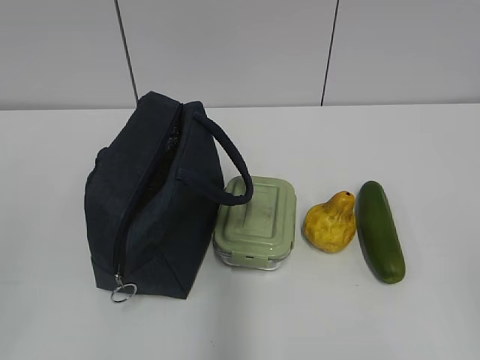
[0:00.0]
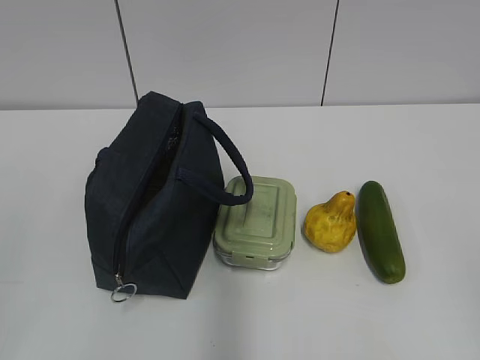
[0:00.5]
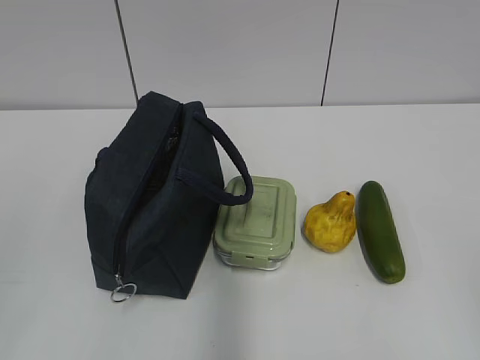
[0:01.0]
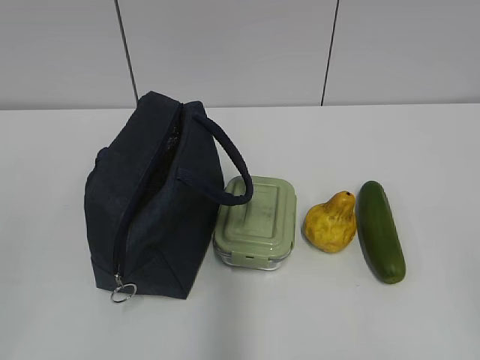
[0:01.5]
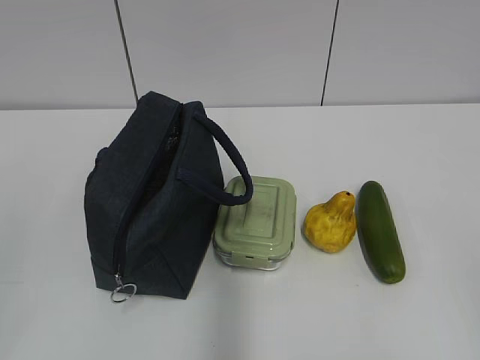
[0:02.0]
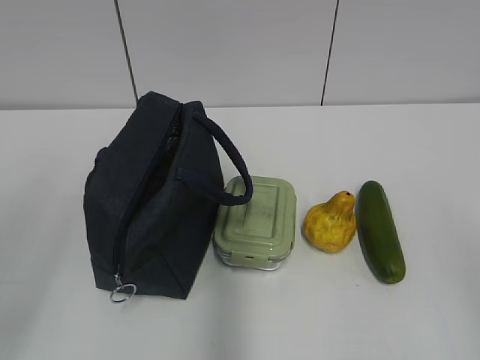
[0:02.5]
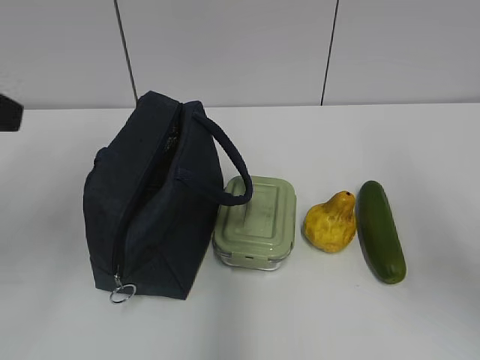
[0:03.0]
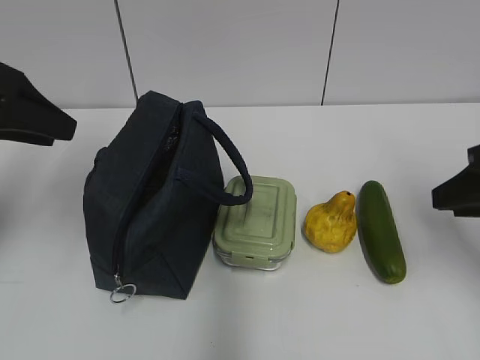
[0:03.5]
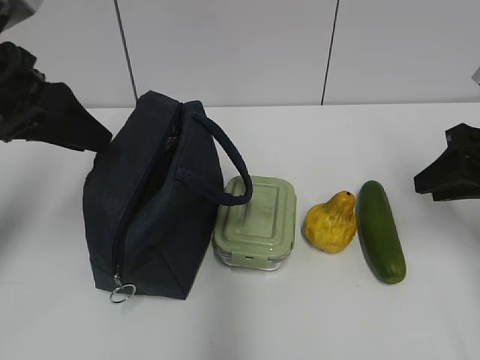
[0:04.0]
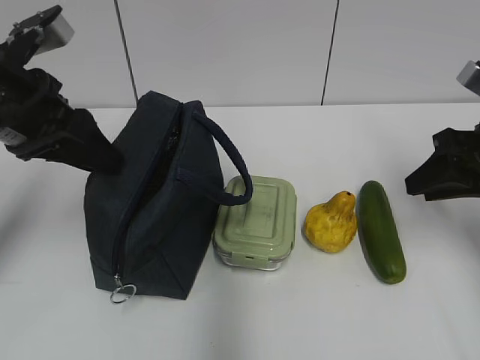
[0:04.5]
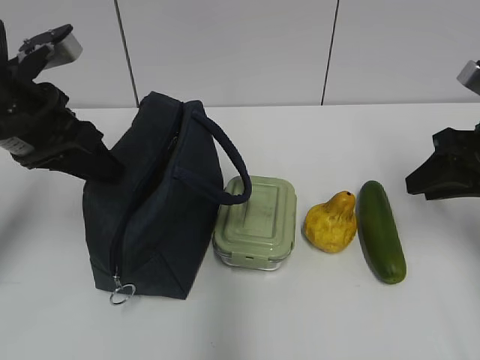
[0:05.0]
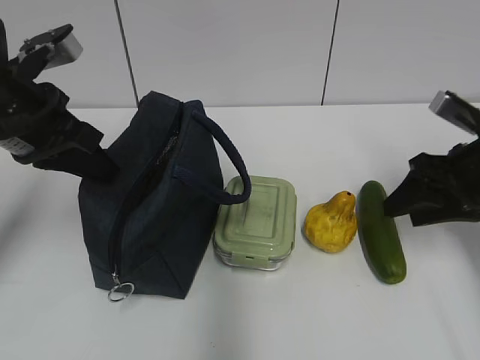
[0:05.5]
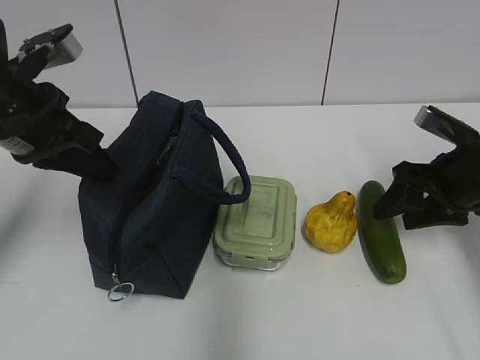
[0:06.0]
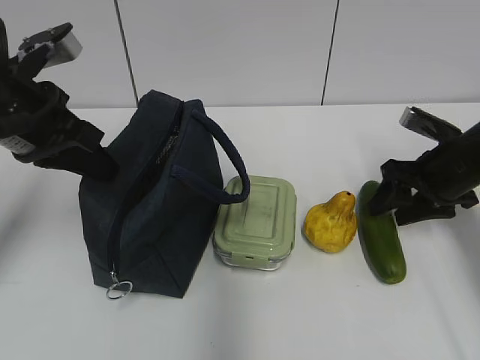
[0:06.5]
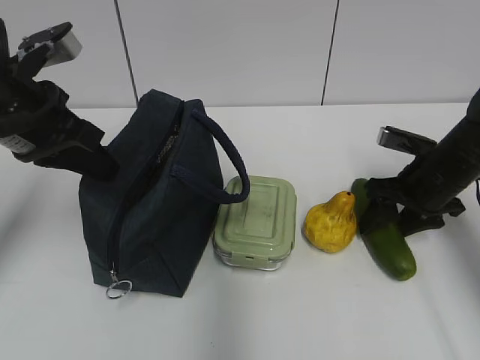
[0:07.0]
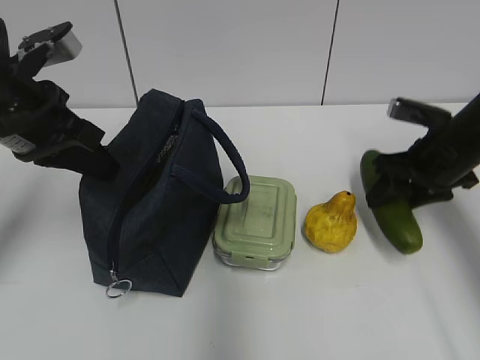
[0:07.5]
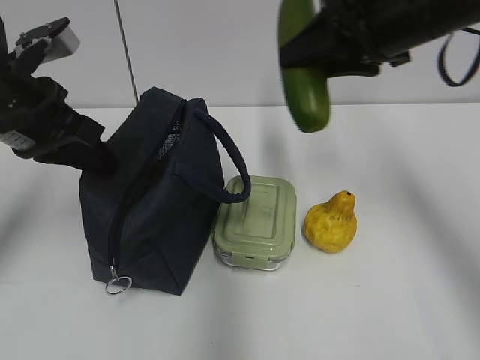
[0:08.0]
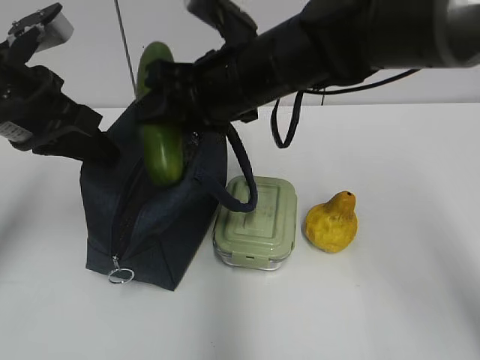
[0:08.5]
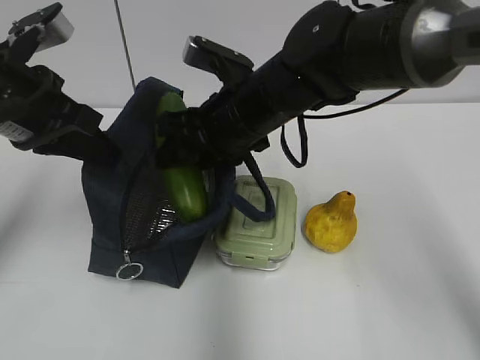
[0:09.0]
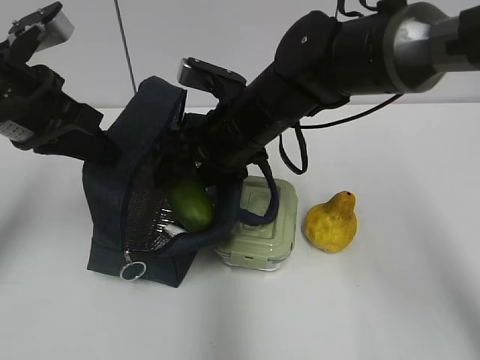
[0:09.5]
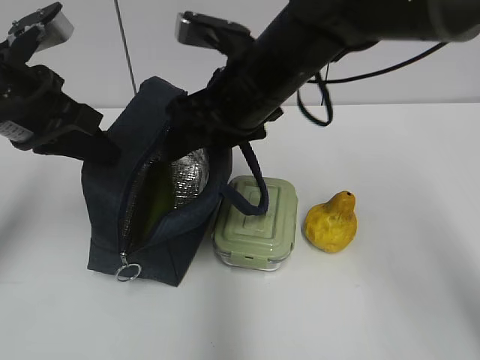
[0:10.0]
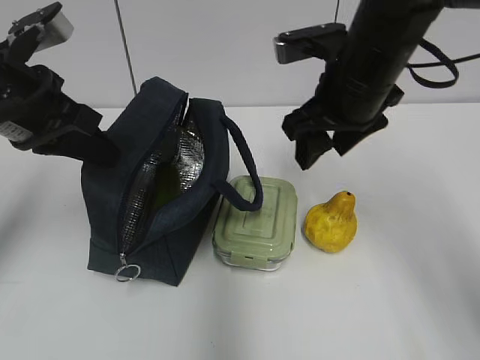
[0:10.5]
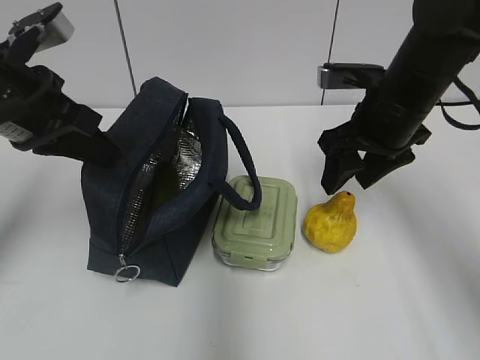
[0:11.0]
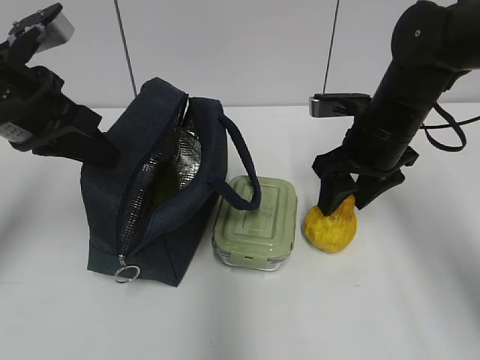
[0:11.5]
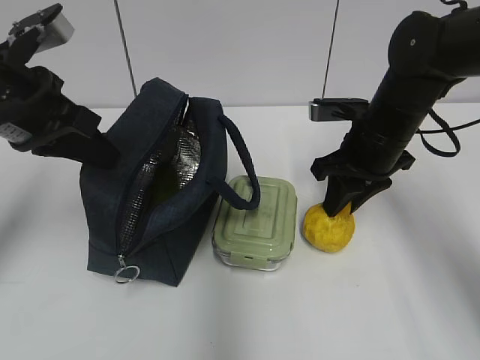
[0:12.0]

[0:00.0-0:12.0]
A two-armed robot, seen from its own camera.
0:02.0 to 0:04.0: Both grippers move forward, roughly 30 cm. The right gripper opens its fingers. The left gripper opens its fingers.
0:04.0 to 0:06.0: The left gripper closes up. The right gripper moves downward, some 5 cm.
0:06.0 to 0:08.0: The right gripper shifts some 20 cm upward and to the left.
0:08.0 to 0:10.0: The right gripper goes roughly 15 cm to the left and downward.
0:10.0 to 0:12.0: The right gripper moves to the right and downward, some 15 cm, and closes up.

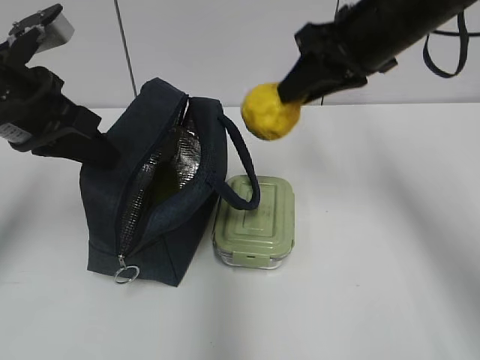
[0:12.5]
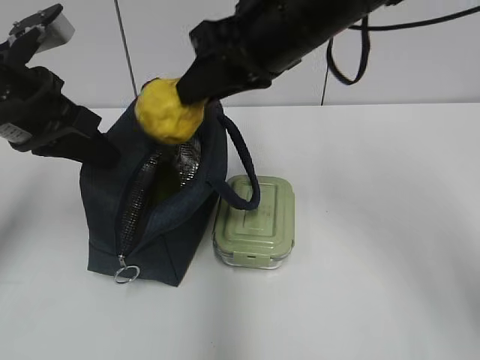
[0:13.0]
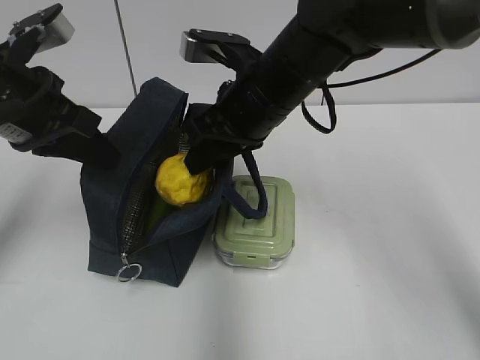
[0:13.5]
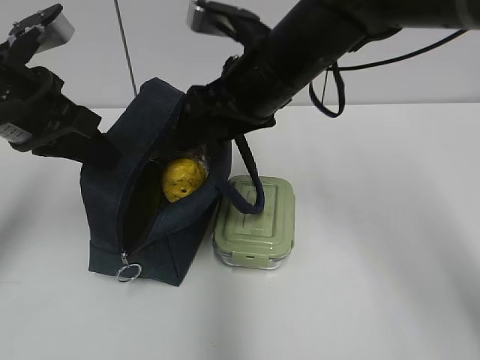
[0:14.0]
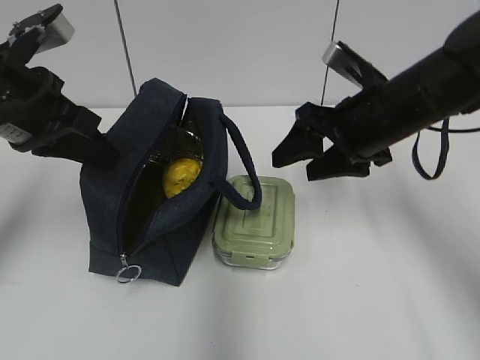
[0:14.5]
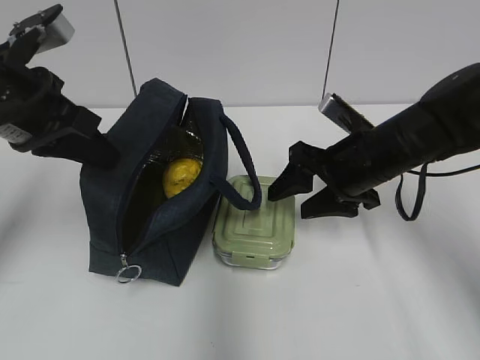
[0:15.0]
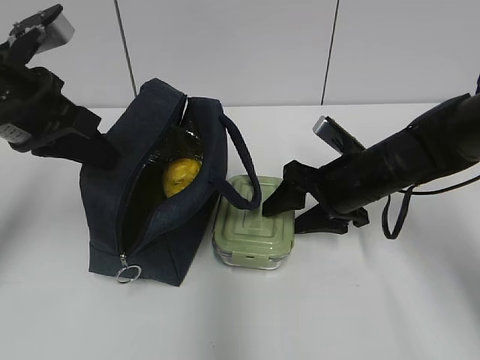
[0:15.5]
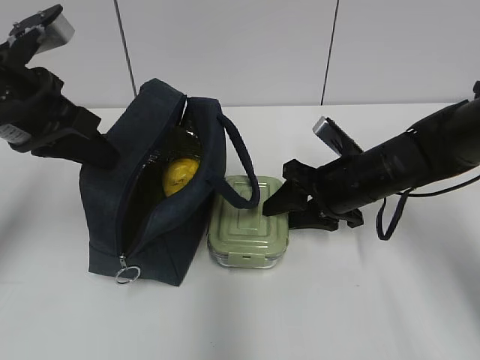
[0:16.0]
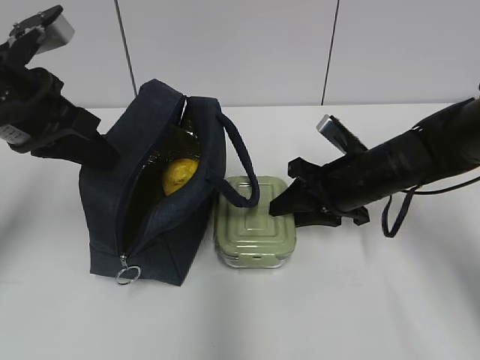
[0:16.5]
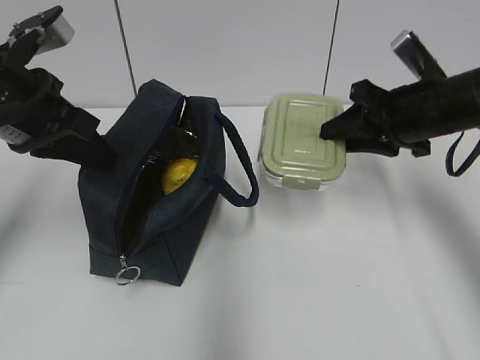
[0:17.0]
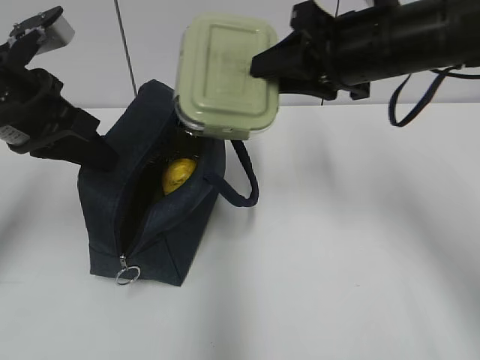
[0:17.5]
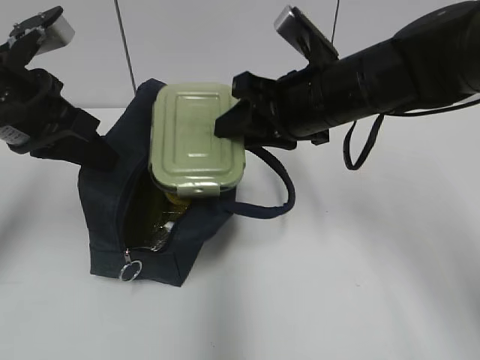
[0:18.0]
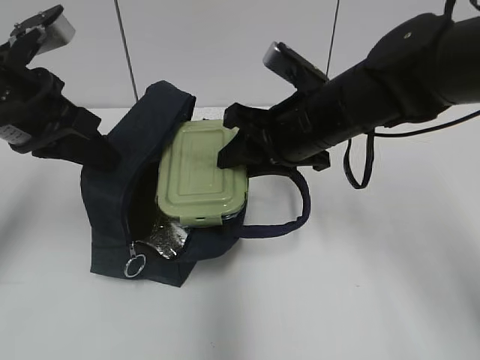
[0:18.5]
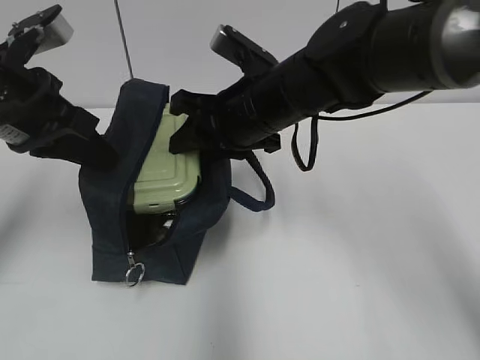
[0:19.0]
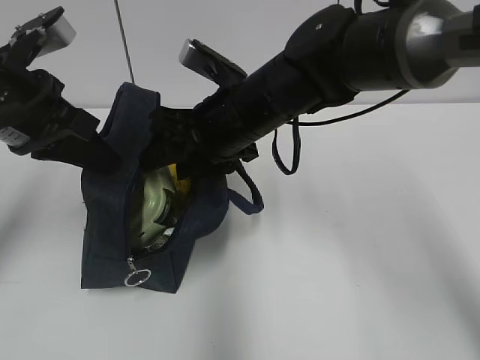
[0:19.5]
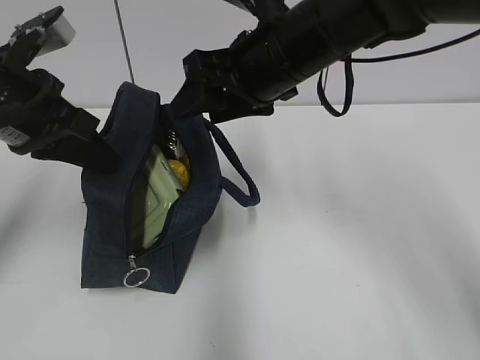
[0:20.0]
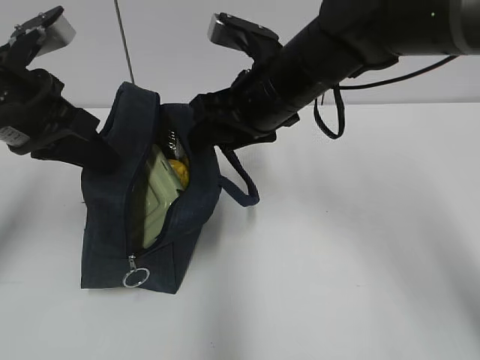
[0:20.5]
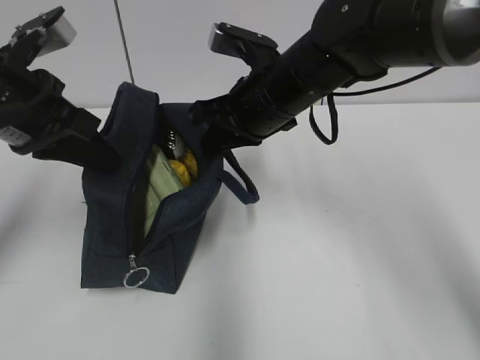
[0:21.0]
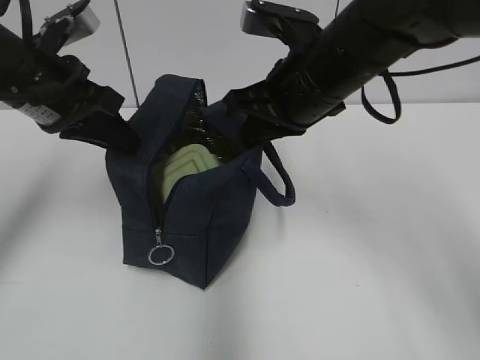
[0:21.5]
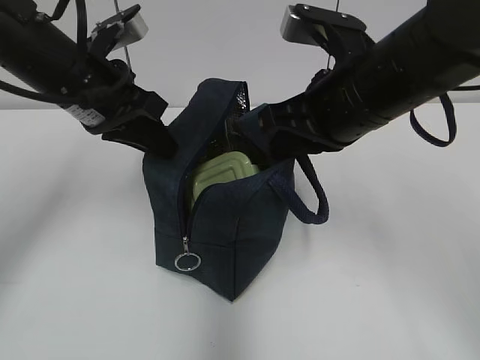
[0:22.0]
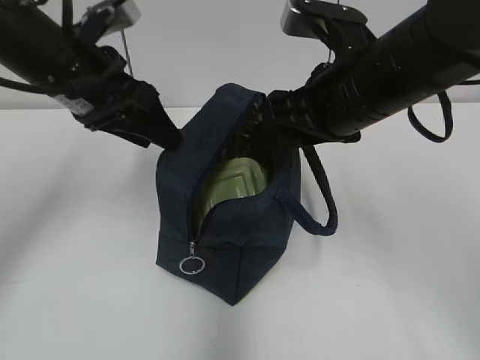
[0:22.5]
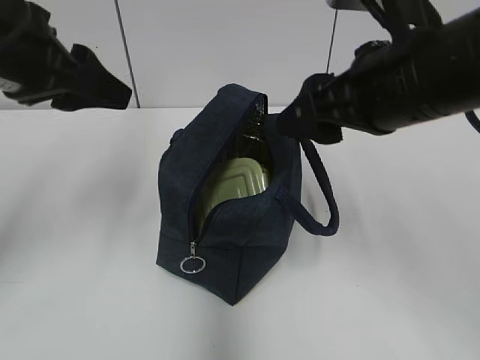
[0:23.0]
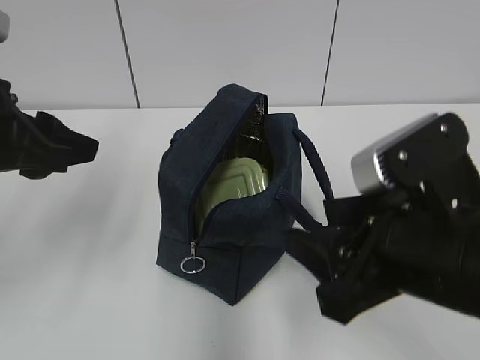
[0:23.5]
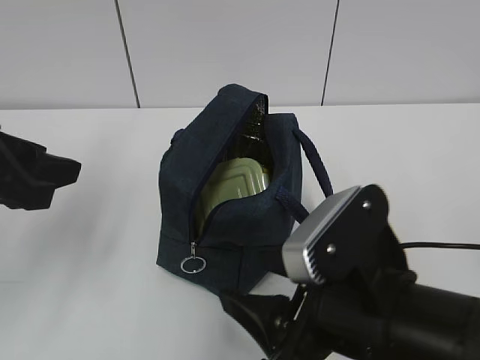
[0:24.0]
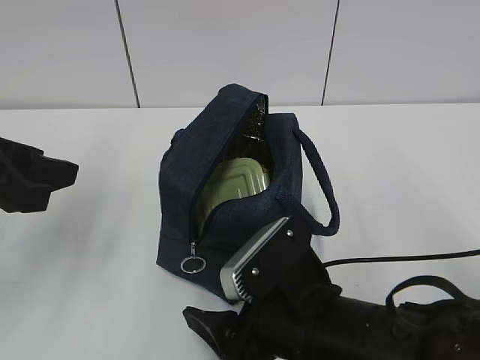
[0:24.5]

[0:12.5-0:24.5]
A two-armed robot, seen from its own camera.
0:12.5 to 0:14.5: The right gripper moves downward, roughly 10 cm, moves roughly 10 cm to the left and comes back, and opens its fingers.
0:14.5 to 0:16.5: The right gripper shifts about 10 cm downward, and closes.
0:16.5 to 0:18.5: The right gripper moves upward and to the left, some 10 cm.
0:20.5 to 0:22.5: The left gripper moves some 5 cm, and opens. The right gripper is displaced backward and to the right by roughly 10 cm, and closes and opens again.
0:22.5 to 0:24.5: The left gripper shifts approximately 15 cm backward and to the left, while the right gripper heads downward and backward, covering roughly 20 cm.

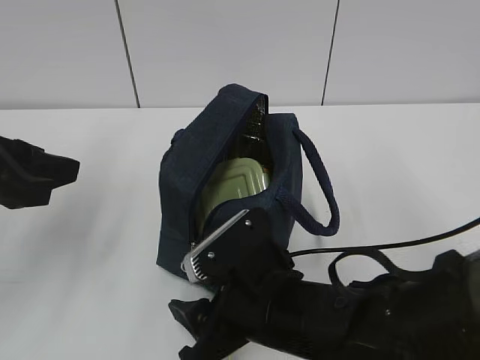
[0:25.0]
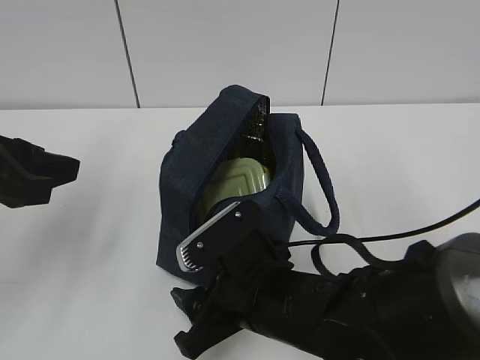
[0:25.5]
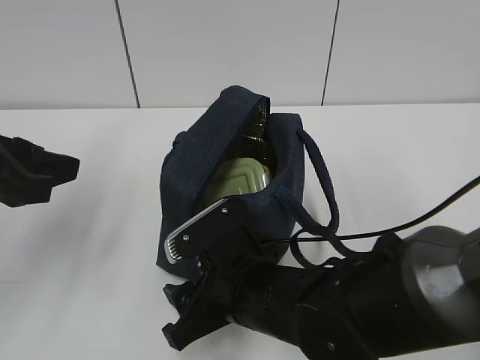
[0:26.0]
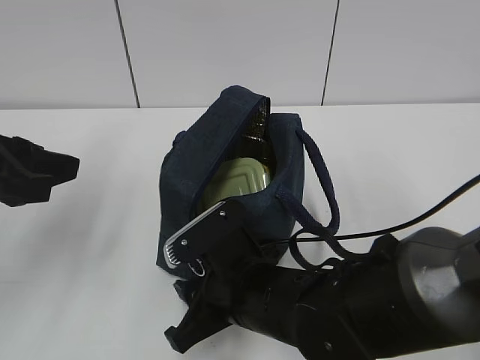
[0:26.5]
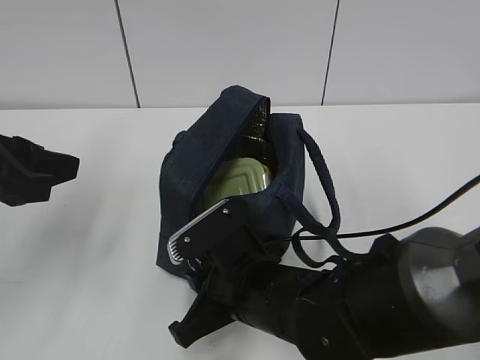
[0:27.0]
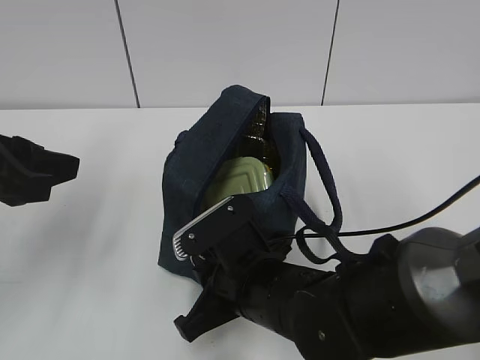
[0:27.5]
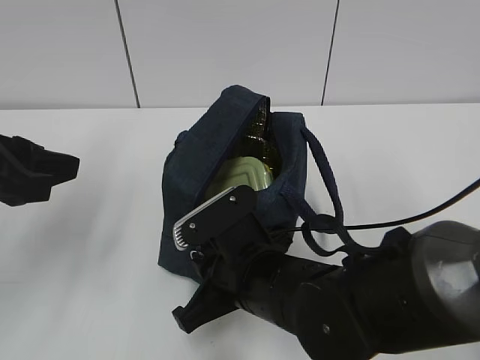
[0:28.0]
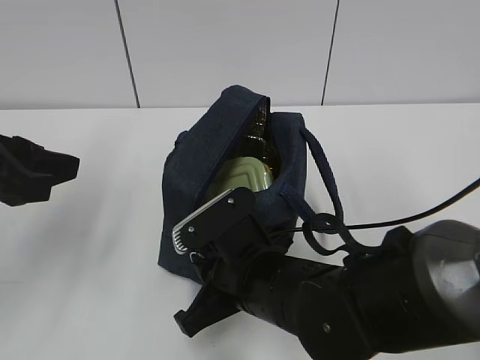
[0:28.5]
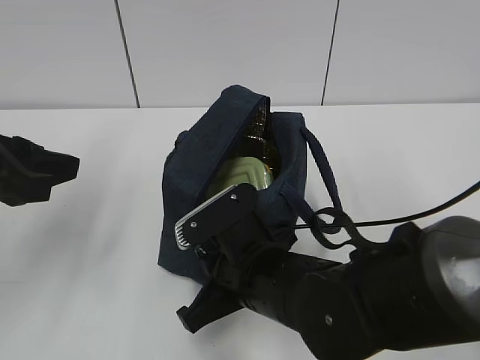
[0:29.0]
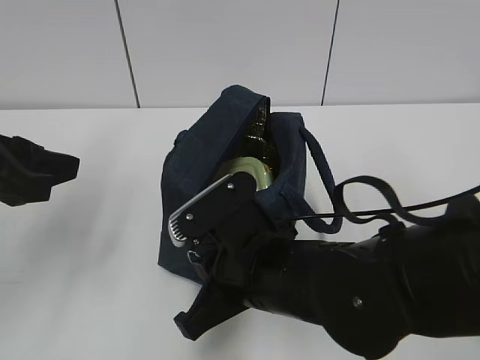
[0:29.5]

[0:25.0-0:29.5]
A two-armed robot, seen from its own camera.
0:25.0 to 0:27.0: The right gripper closes.
0:27.0 to 0:29.5: There are only small adjustments of the grippers.
